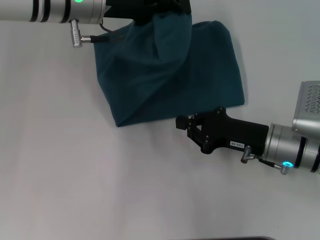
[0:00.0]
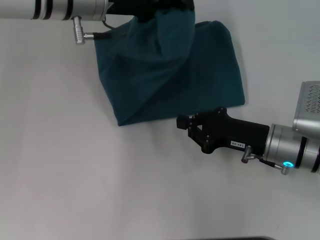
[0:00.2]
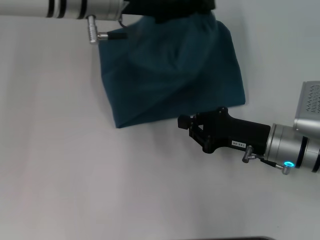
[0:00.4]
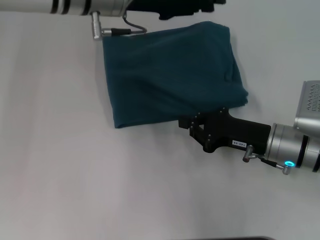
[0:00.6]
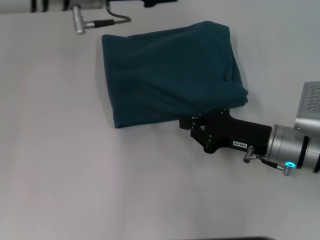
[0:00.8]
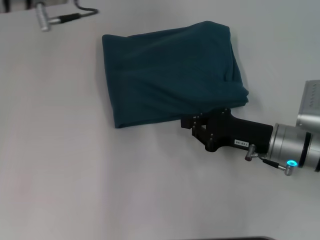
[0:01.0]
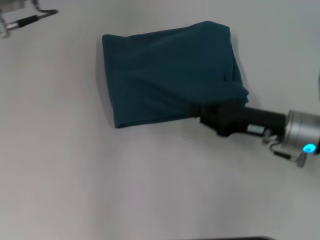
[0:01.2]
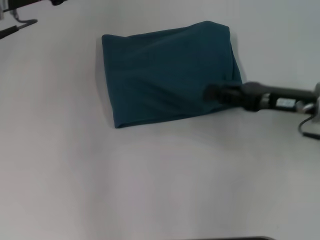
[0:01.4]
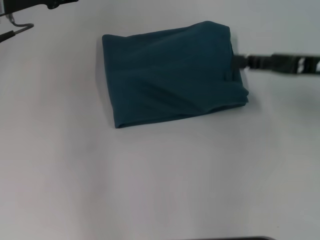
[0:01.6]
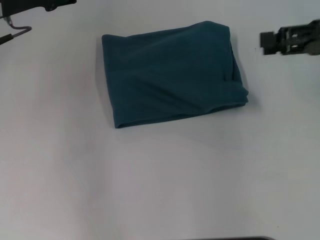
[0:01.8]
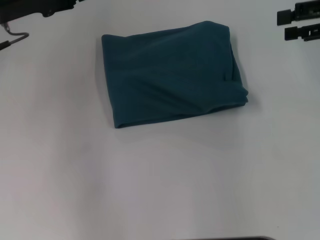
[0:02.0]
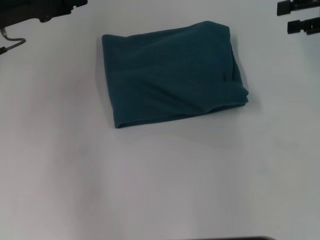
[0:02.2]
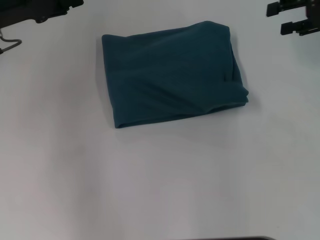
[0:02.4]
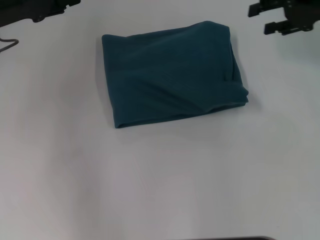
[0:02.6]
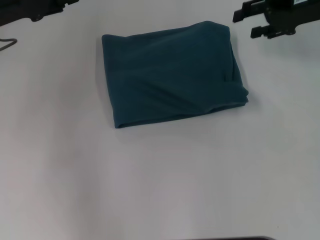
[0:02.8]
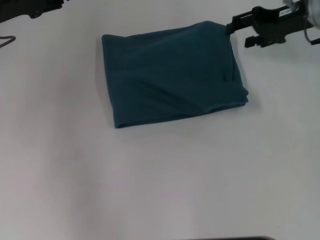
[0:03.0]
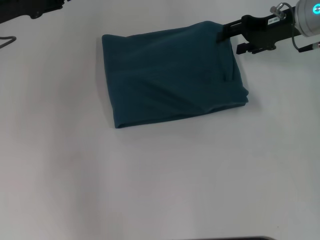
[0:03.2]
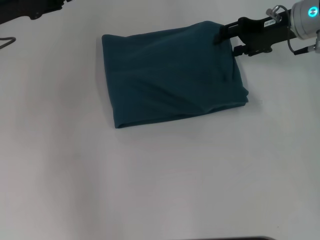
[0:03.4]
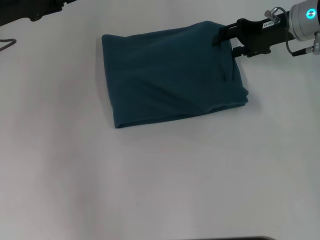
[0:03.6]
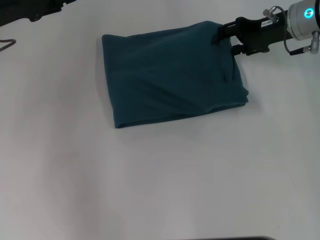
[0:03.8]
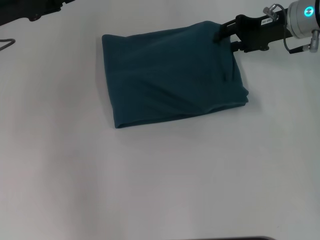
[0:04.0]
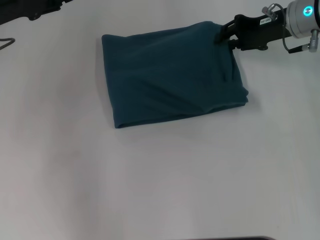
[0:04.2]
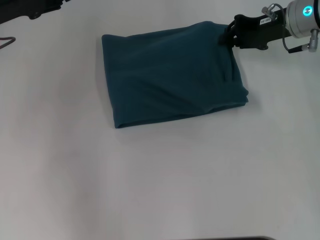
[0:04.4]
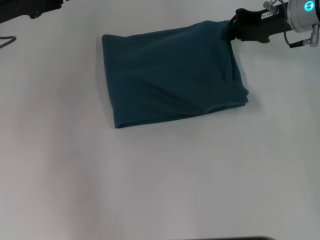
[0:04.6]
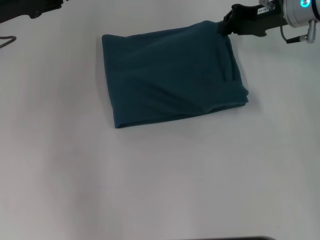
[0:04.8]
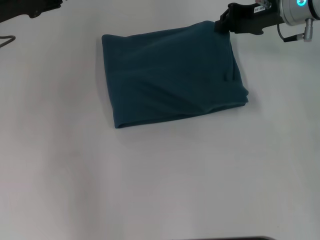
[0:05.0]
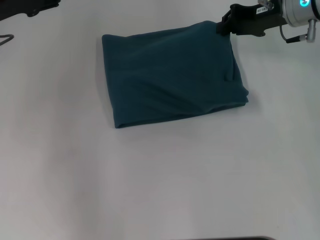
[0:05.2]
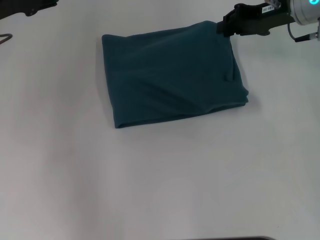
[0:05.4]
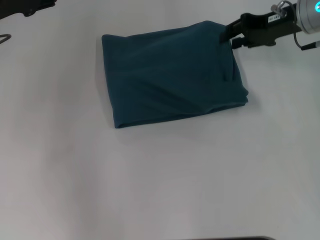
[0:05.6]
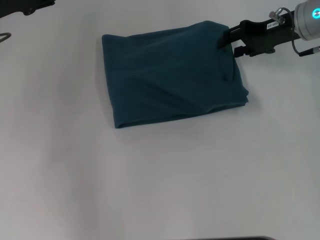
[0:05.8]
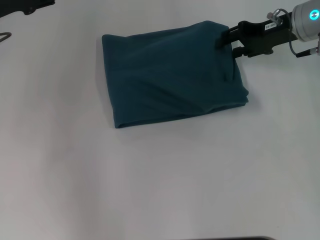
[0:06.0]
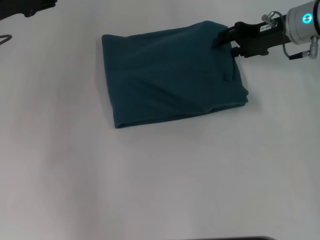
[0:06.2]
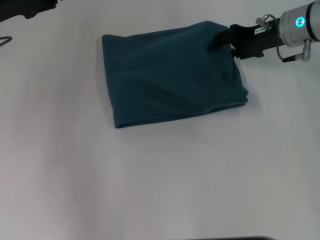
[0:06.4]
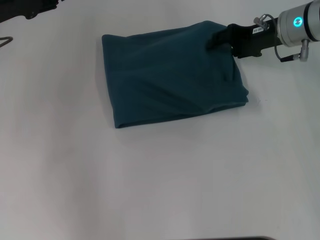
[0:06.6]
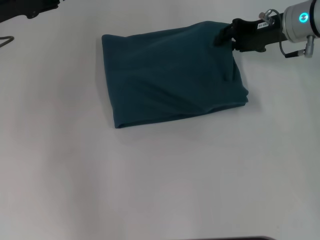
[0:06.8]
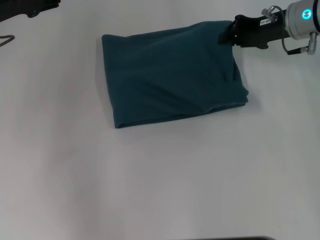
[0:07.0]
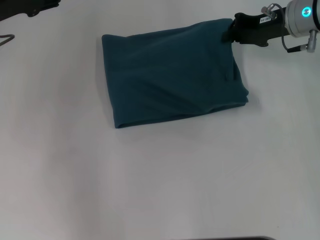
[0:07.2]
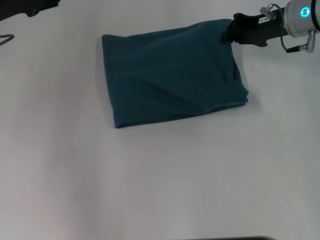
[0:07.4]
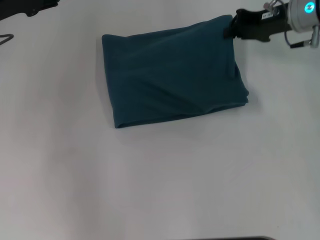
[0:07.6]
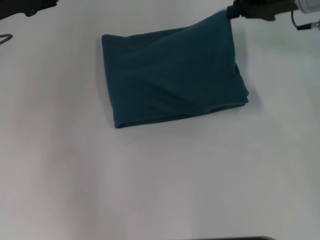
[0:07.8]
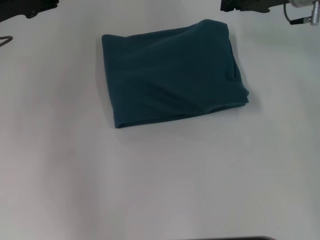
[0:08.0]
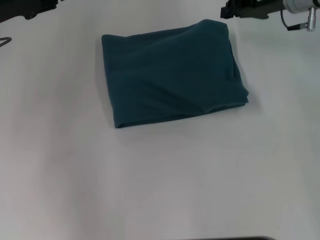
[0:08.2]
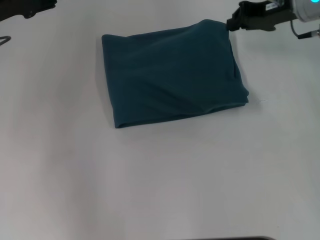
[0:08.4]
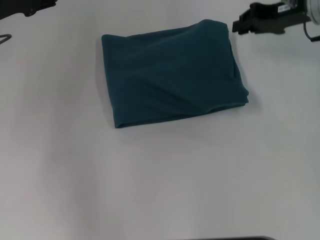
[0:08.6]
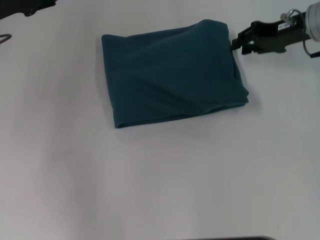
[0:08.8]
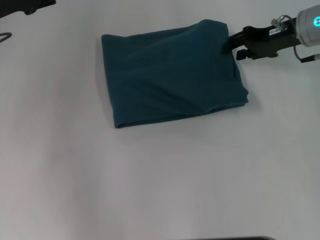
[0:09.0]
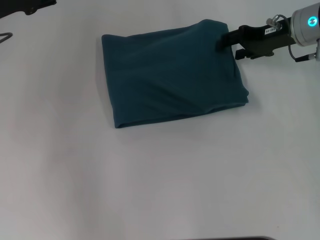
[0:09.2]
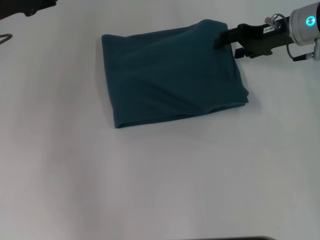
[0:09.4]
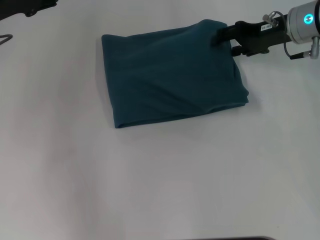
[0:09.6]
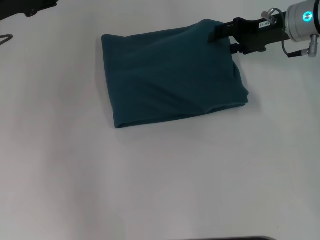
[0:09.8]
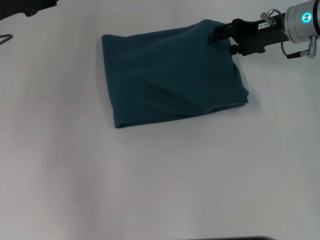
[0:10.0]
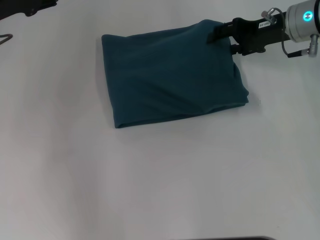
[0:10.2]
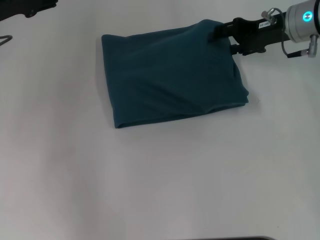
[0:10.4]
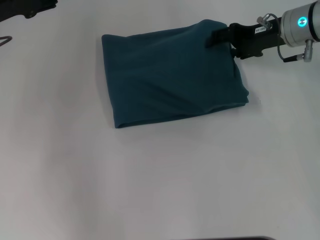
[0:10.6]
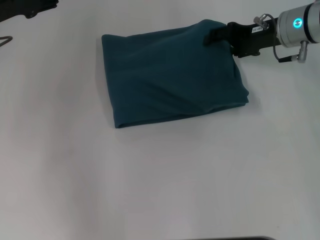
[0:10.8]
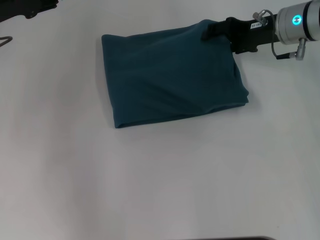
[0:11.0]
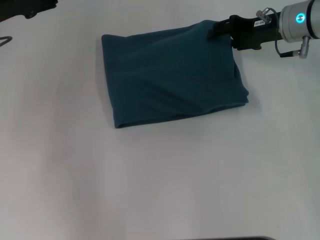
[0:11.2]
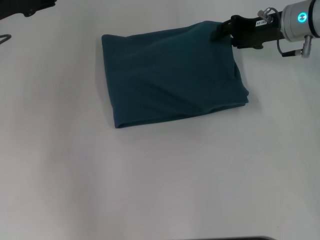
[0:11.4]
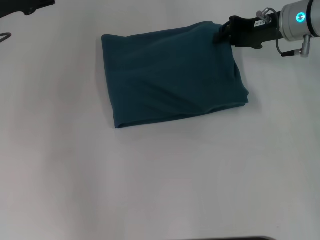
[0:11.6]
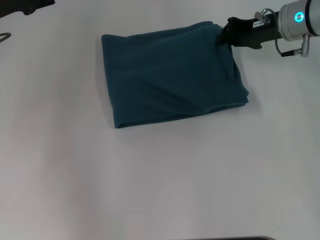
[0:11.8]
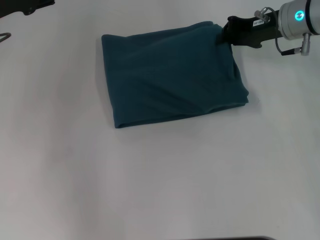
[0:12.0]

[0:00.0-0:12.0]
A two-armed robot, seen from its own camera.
0:00.0 to 0:01.6: The right gripper goes approximately 15 cm upward, to the right and forward. Meanwhile the left gripper moves to the left, roughly 10 cm, and opens up.
0:01.6 to 0:03.0: The right gripper heads forward, covering roughly 10 cm, and opens its fingers.
0:03.0 to 0:06.0: The grippers stay close to where they were, moving slightly.
0:06.0 to 0:07.6: The right gripper closes.
0:07.6 to 0:09.0: The grippers move only a little.
0:09.0 to 0:10.4: The right gripper opens its fingers.
0:10.4 to 0:12.0: The right gripper closes its fingers.

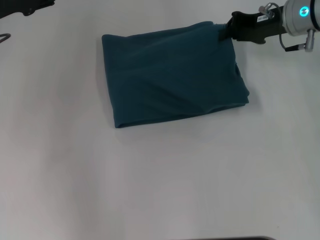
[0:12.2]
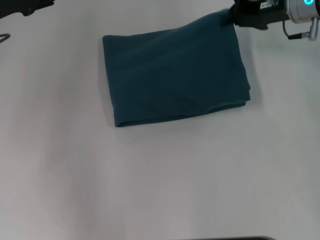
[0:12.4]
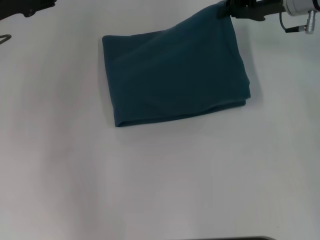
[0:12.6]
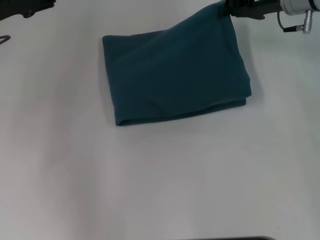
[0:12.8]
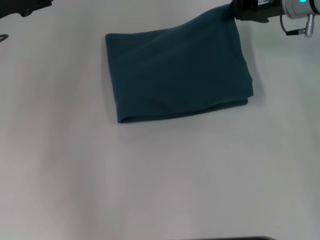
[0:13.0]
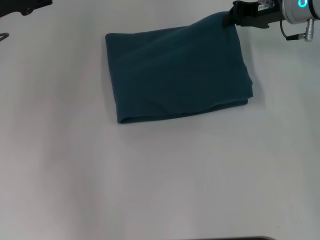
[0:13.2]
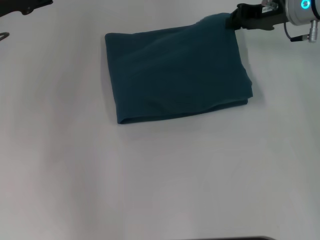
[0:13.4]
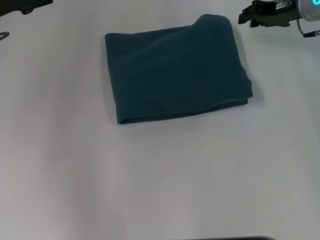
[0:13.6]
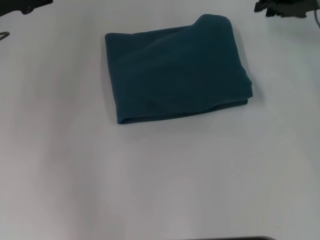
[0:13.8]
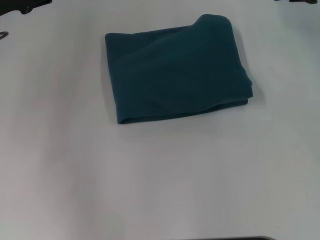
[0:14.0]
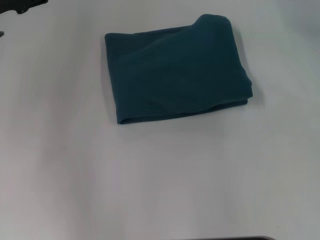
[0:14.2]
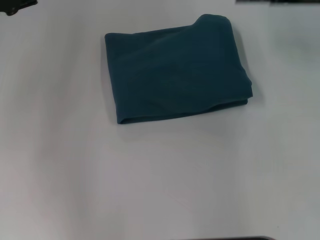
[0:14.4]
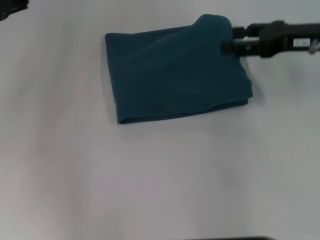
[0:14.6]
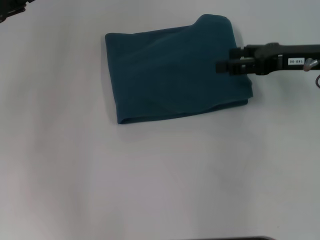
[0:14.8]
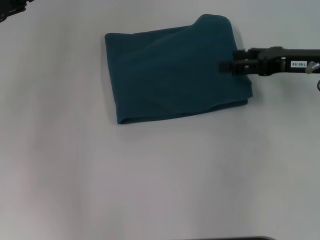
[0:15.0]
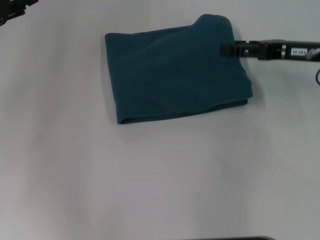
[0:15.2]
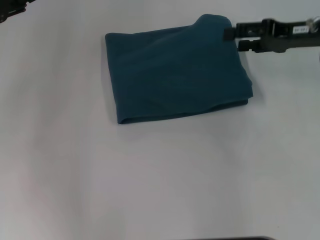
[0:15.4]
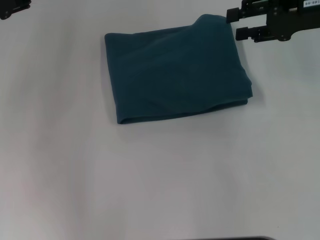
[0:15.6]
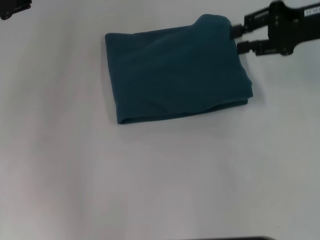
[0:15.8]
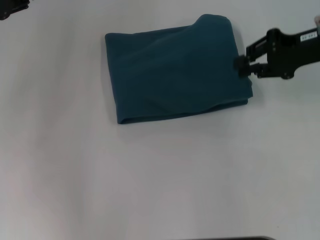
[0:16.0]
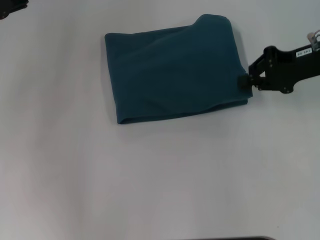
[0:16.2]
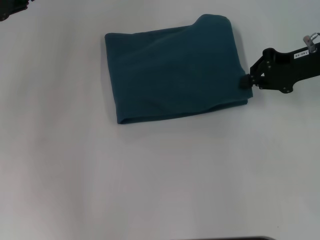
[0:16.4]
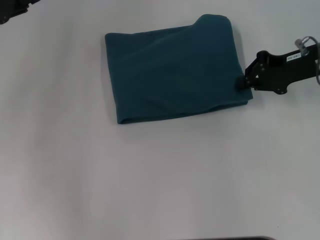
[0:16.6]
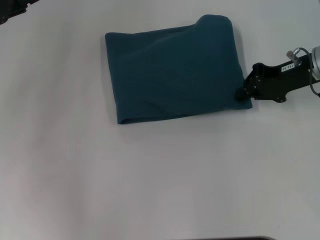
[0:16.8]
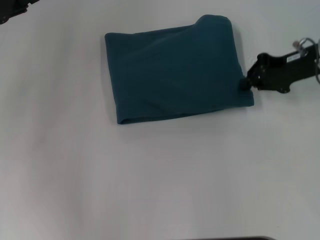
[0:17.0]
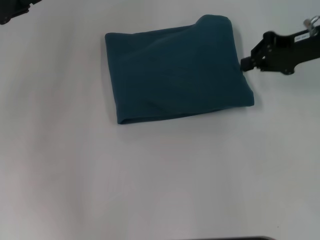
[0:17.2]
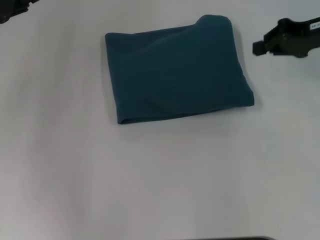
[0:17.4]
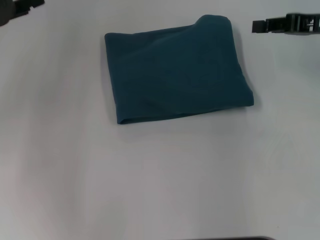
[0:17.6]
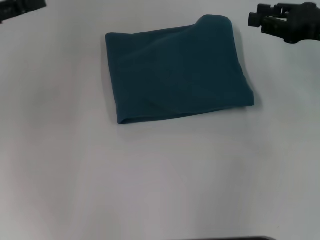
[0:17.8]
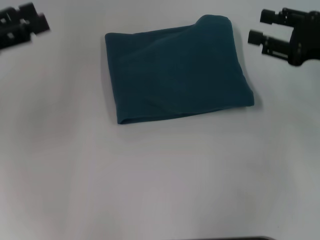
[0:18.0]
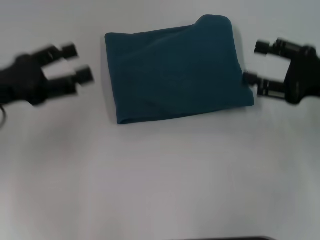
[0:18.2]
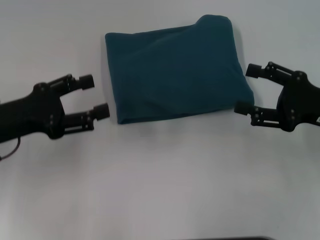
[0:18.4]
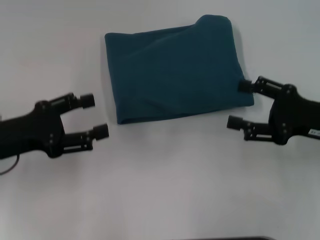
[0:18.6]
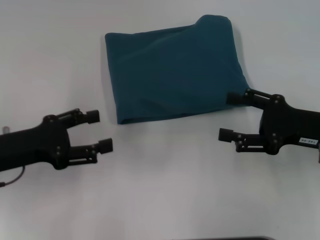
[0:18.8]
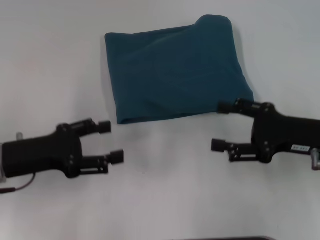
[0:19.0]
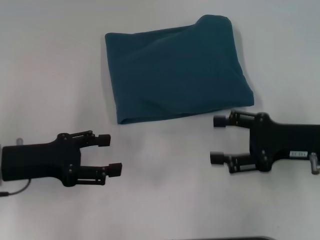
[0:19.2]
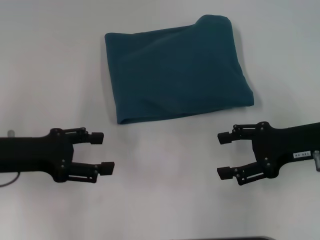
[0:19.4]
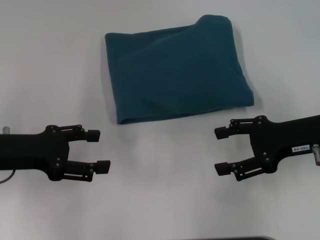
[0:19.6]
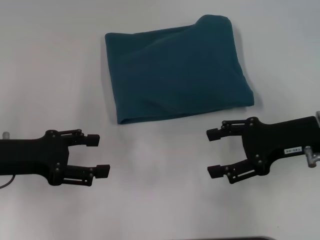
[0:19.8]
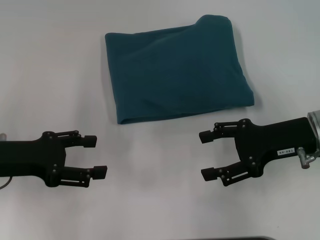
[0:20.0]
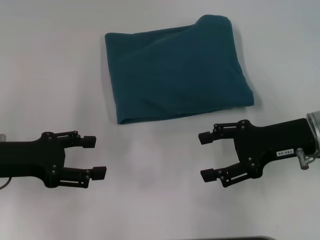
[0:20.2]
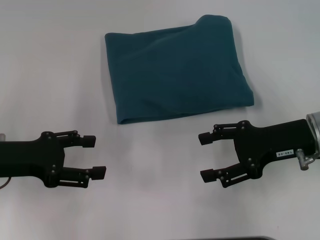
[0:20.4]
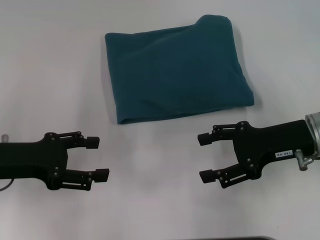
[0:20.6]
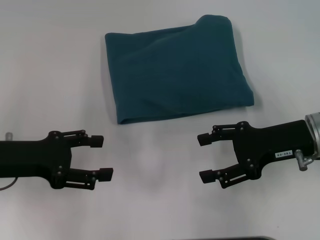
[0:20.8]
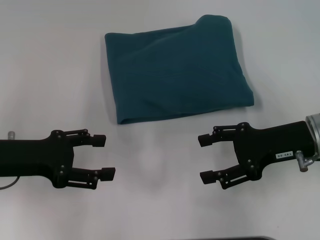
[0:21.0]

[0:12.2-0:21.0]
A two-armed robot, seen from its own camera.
0:12.2 to 0:13.6: There are only small adjustments of the grippers.
0:13.6 to 0:15.2: The right gripper goes about 10 cm backward, and opens.
0:15.2 to 0:16.6: The right gripper closes.
0:16.6 to 0:18.0: The left gripper moves approximately 5 cm. The right gripper moves backward, approximately 5 cm, and opens up.
0:18.0 to 0:19.6: The right gripper changes place by roughly 5 cm, and opens; the left gripper shifts about 10 cm downward and to the right.
0:19.6 to 0:21.0: The grippers stay close to where they were, moving slightly.

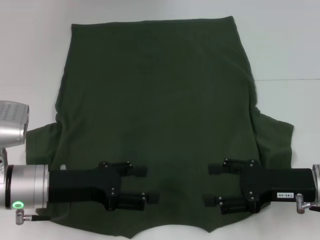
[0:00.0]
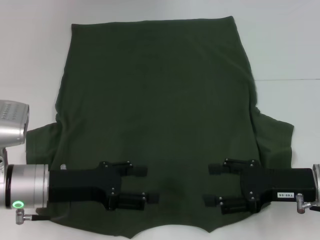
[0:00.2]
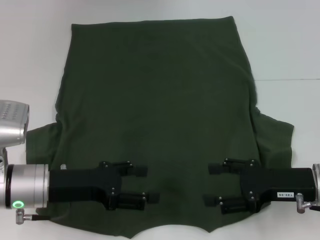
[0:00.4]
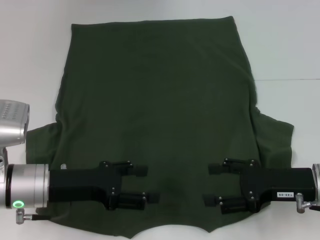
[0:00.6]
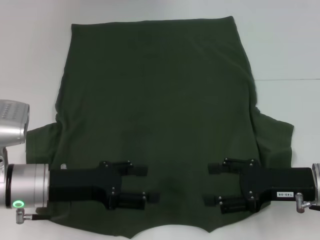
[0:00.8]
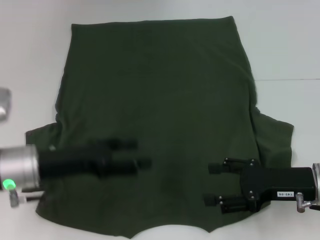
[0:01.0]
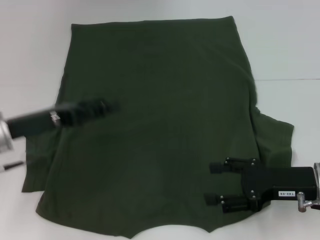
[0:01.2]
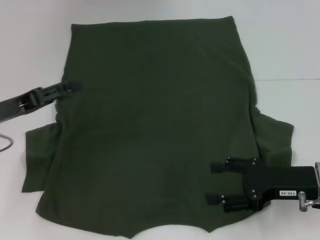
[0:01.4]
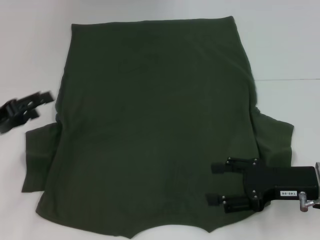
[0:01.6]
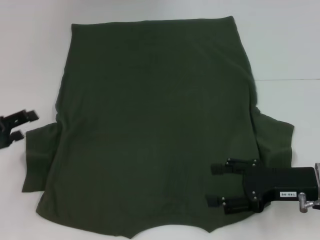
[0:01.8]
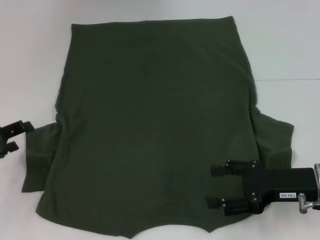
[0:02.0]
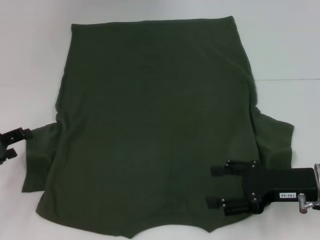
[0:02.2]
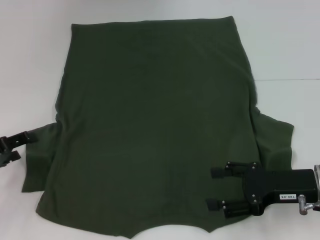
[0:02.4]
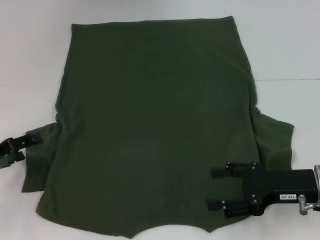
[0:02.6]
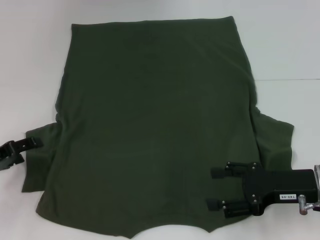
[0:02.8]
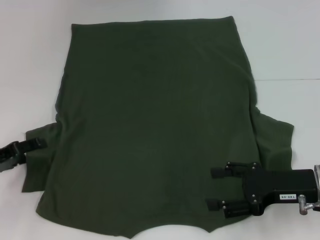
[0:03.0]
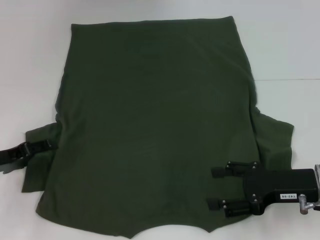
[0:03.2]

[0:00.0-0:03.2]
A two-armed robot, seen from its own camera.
0:00.0 to 0:01.6: The left gripper moves to the left, roughly 10 cm.
0:01.6 to 0:03.2: The grippers stay close to where they were, moving slightly.
